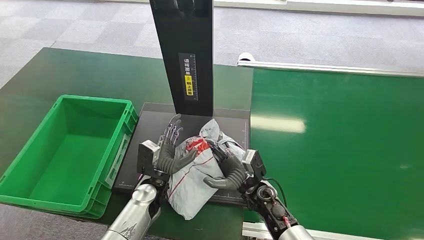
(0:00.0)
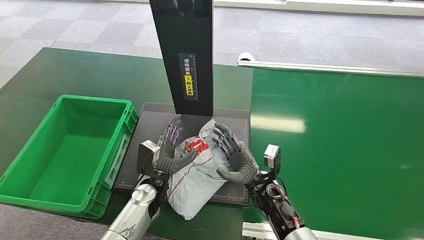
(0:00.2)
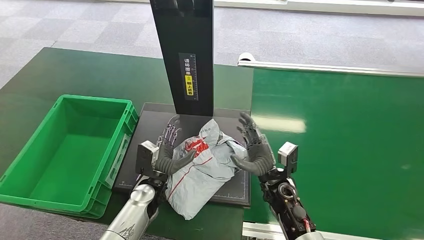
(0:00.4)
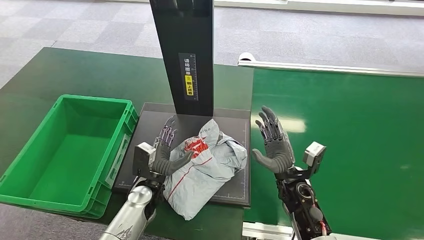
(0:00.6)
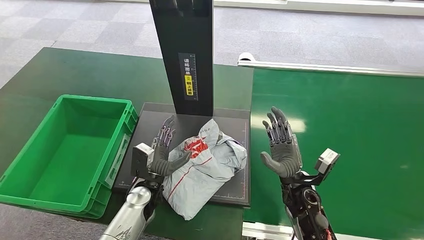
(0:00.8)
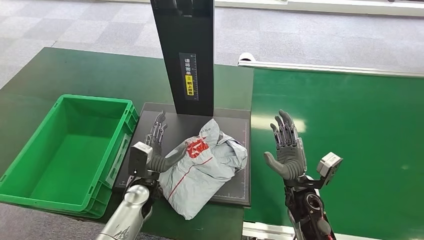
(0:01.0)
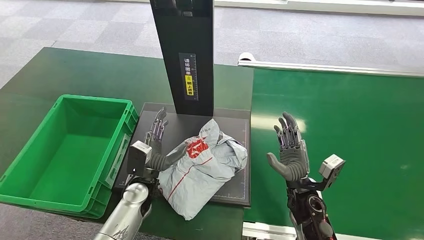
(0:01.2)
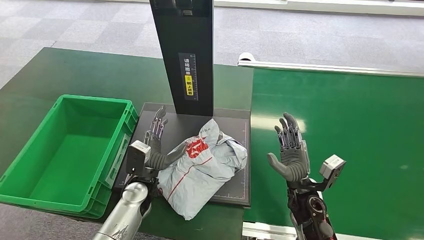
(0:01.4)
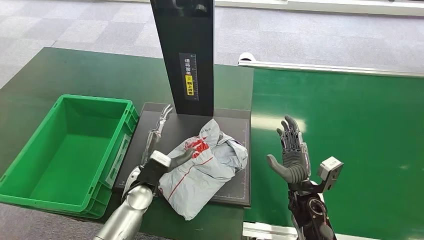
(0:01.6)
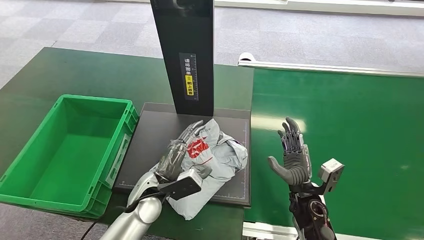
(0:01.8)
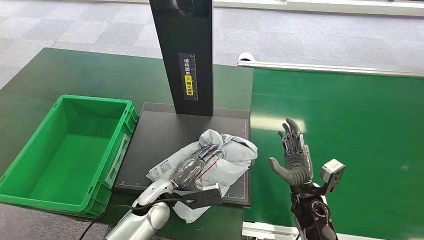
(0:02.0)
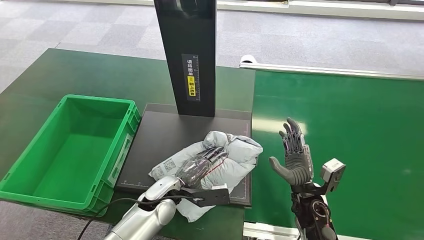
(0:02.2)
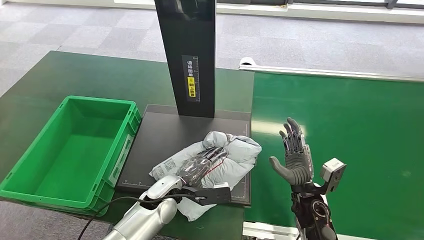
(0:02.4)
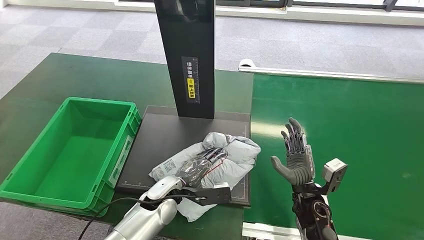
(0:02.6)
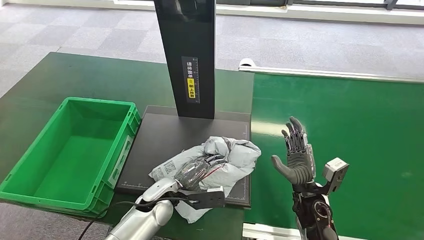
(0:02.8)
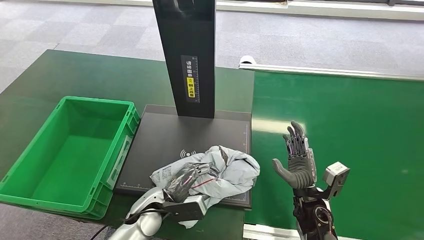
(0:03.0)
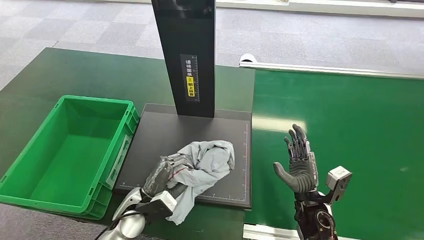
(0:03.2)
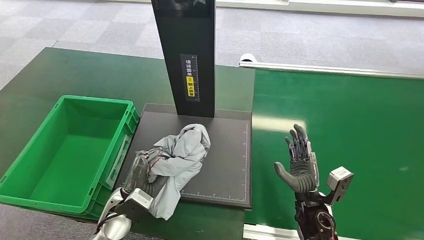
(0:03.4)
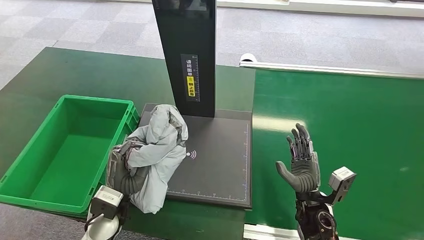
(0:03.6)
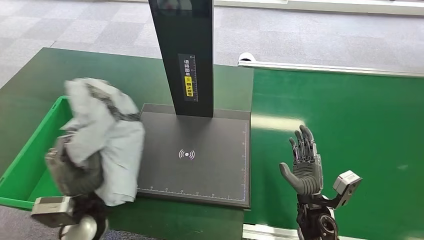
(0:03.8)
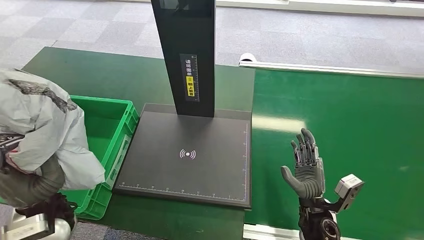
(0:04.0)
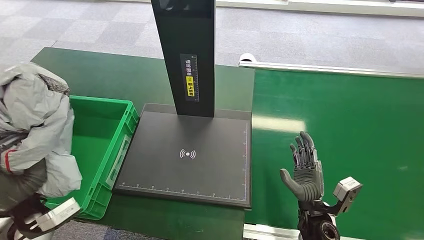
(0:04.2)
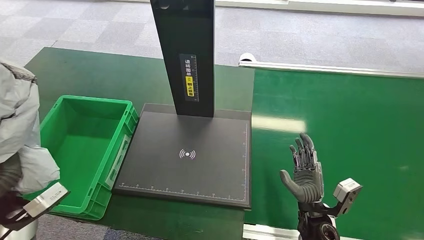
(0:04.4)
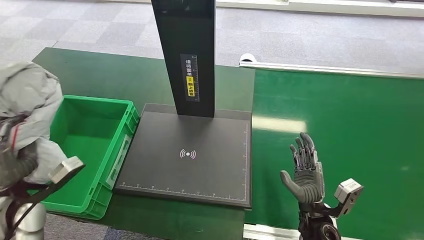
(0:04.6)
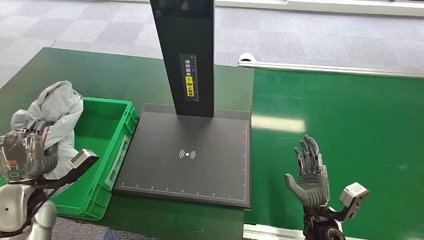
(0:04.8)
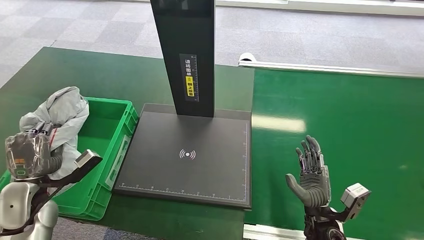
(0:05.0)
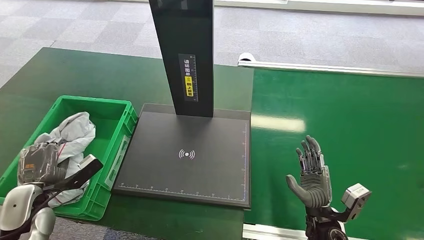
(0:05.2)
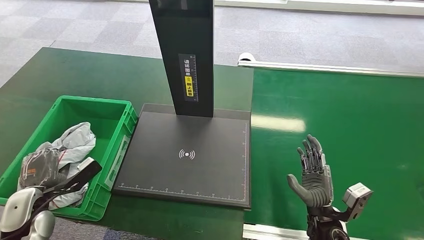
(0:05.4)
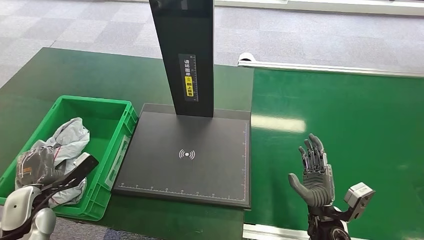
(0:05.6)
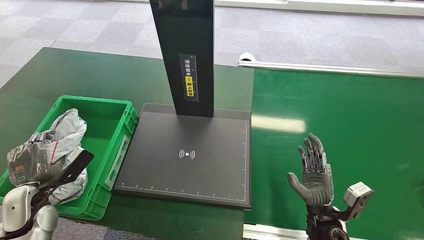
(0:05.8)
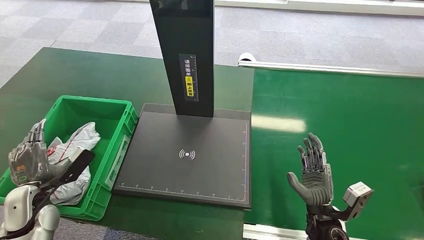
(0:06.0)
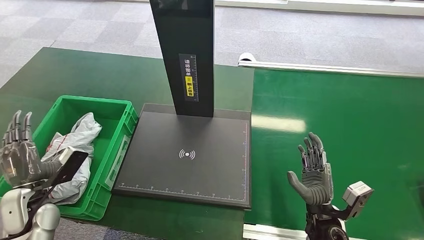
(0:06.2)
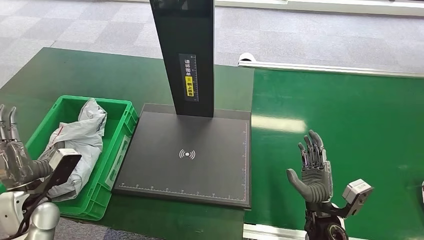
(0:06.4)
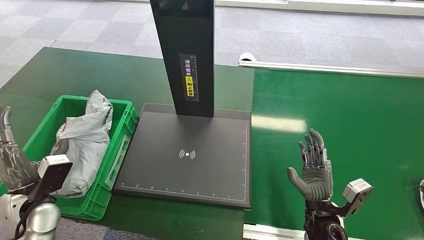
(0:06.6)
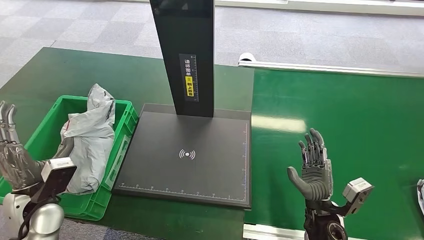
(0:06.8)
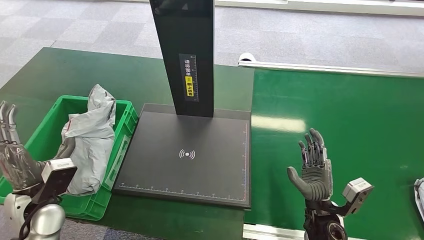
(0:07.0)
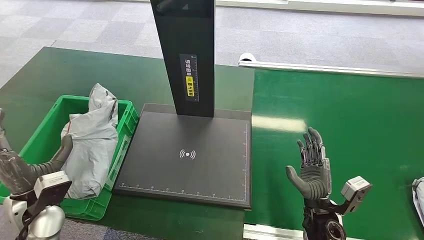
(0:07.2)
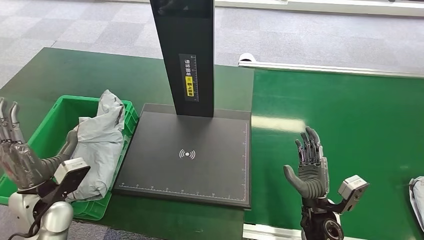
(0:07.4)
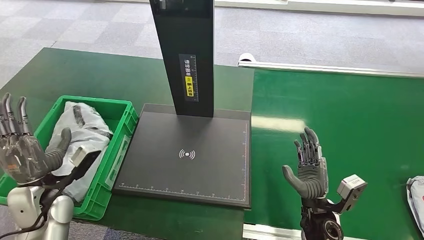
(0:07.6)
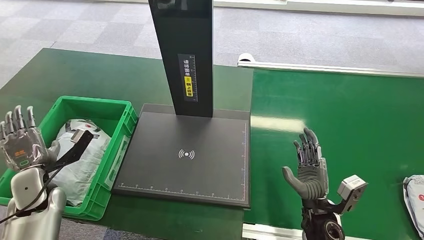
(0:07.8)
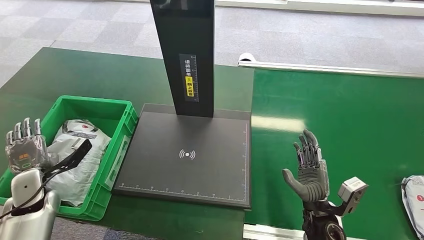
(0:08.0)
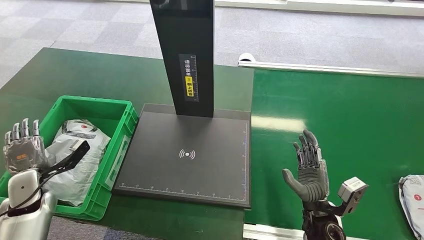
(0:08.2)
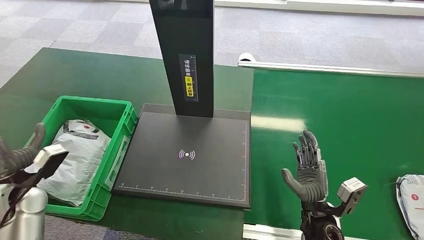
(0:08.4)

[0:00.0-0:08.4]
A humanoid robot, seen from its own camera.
Step, 0:00.4 to 0:03.6: Pick up the package from the inbound machine.
Step, 0:03.8 to 0:08.4: Place the package into the parcel locker.
0:00.0 to 0:01.4: The right hand travels to the right by approximately 10 cm.
0:04.2 to 0:05.6: The left hand moves downward and to the left, approximately 10 cm.
0:05.6 to 0:07.0: The left hand changes place by about 5 cm.
0:07.0 to 0:08.4: The left hand shifts about 5 cm to the left.
